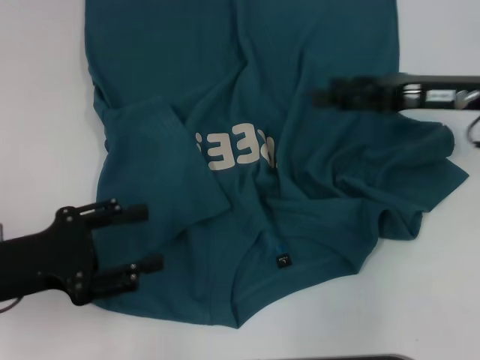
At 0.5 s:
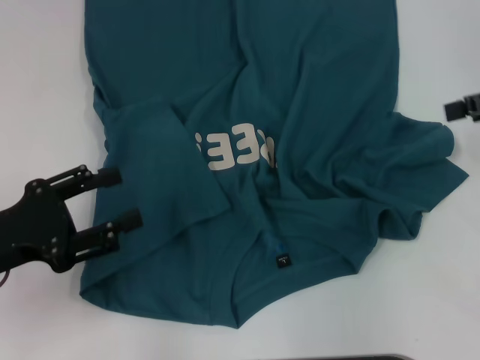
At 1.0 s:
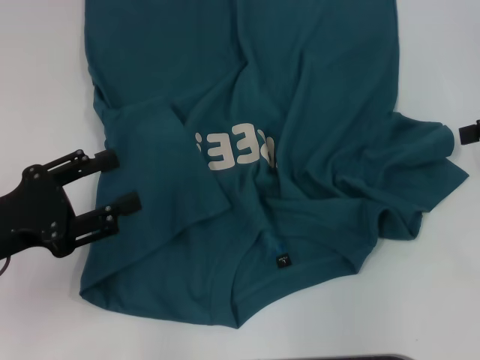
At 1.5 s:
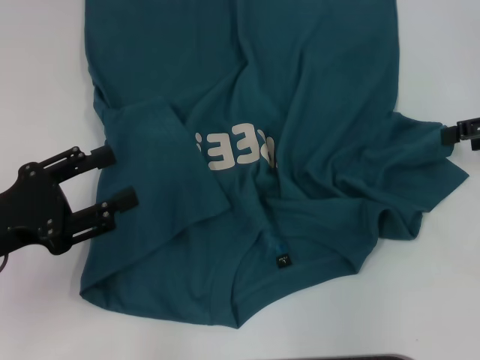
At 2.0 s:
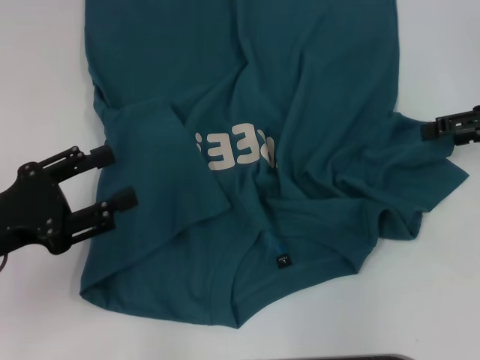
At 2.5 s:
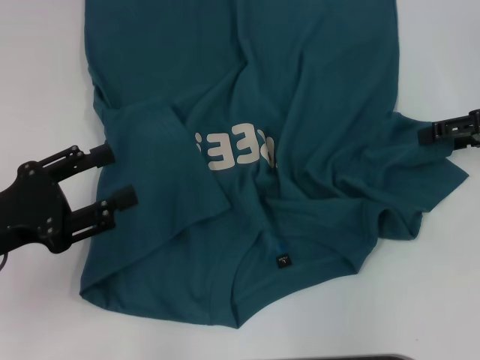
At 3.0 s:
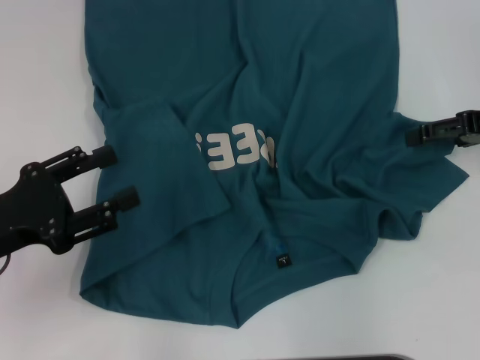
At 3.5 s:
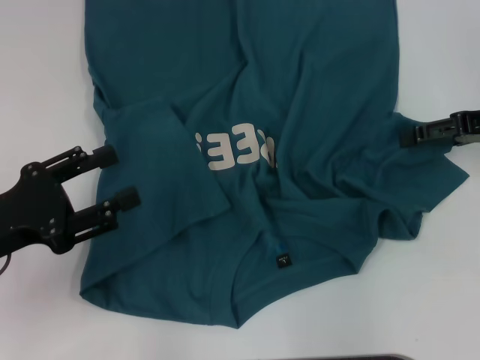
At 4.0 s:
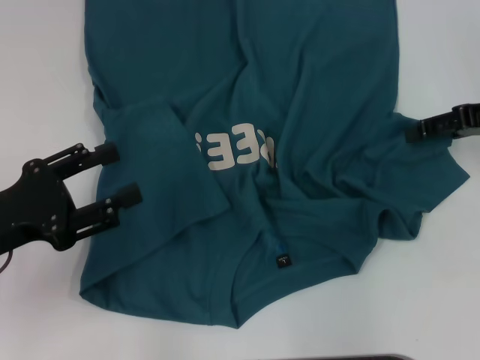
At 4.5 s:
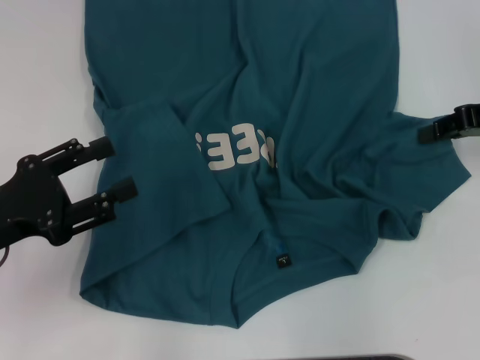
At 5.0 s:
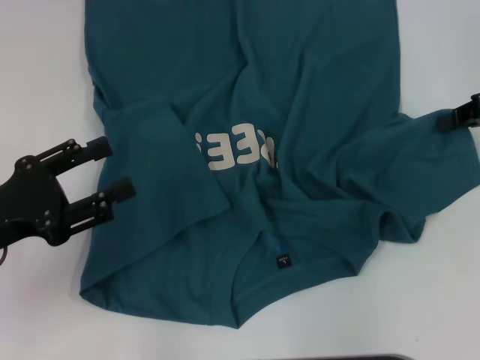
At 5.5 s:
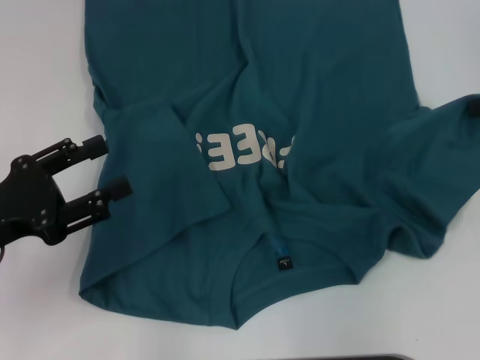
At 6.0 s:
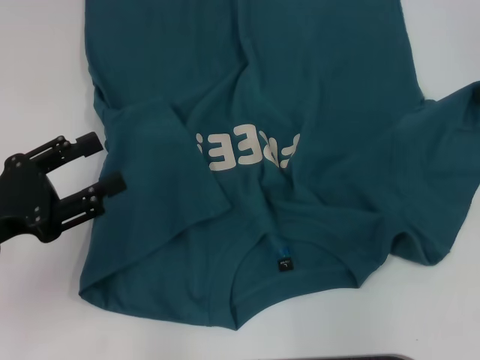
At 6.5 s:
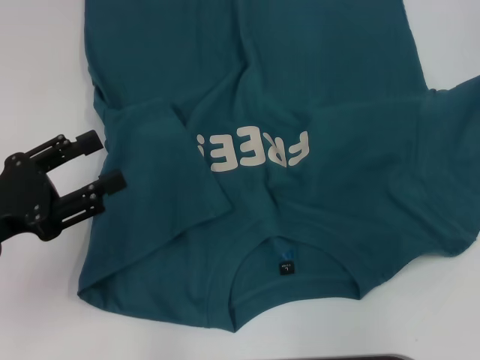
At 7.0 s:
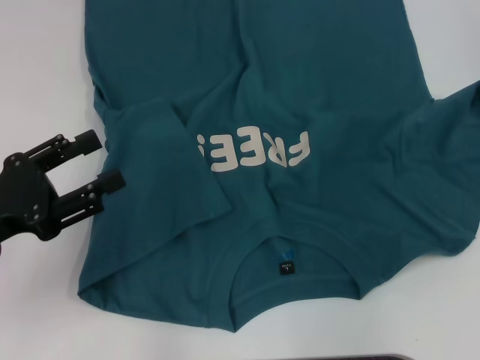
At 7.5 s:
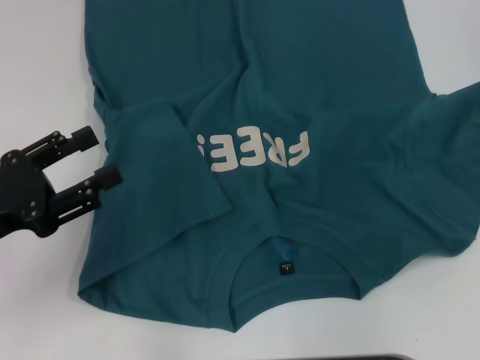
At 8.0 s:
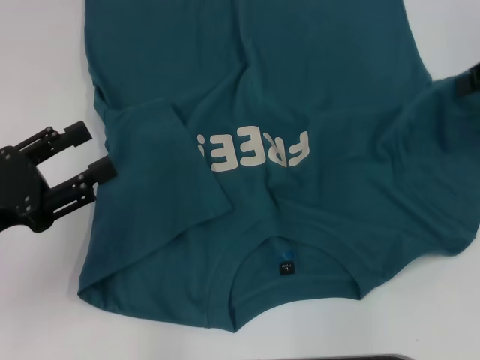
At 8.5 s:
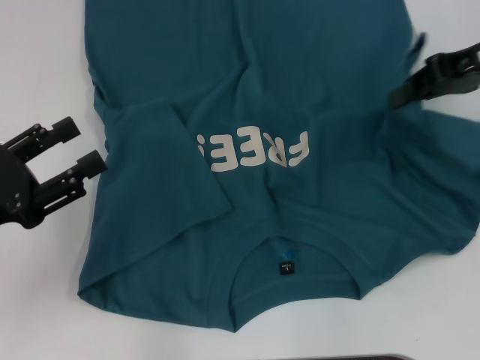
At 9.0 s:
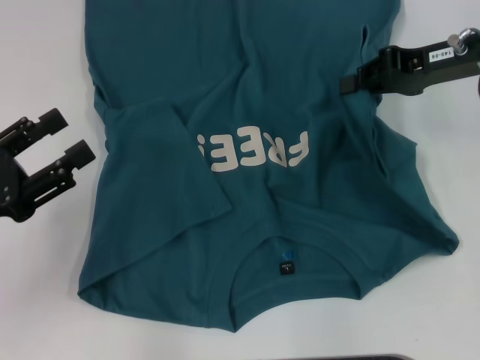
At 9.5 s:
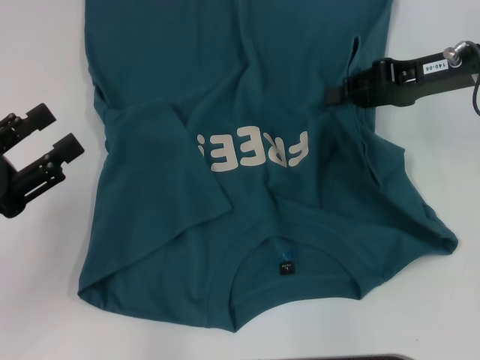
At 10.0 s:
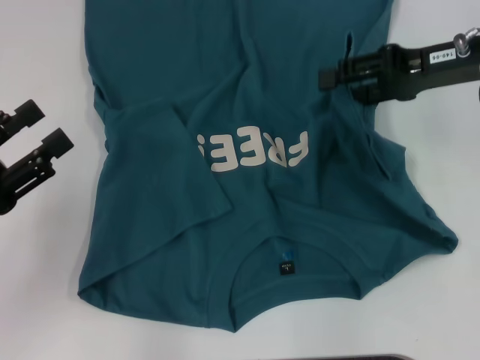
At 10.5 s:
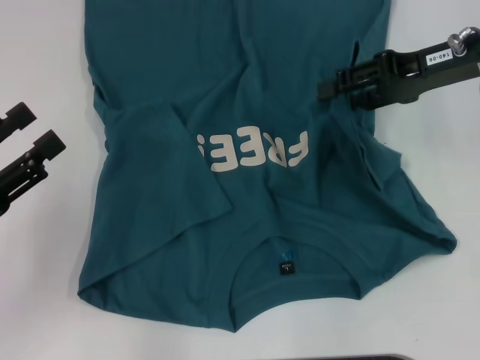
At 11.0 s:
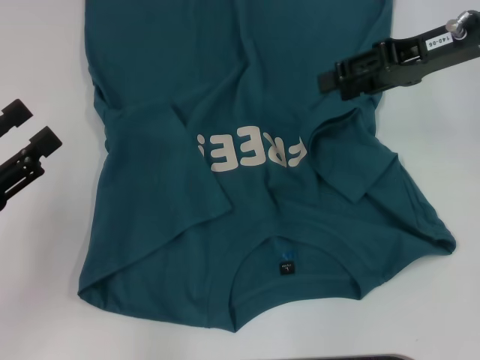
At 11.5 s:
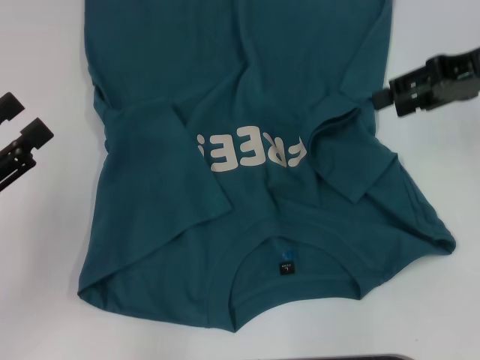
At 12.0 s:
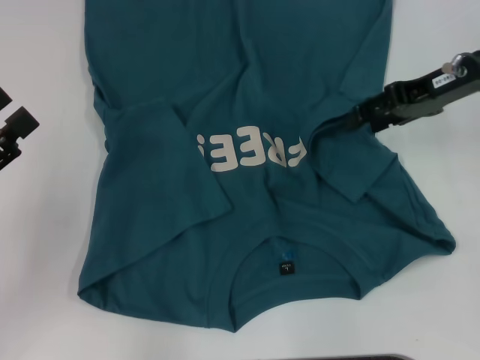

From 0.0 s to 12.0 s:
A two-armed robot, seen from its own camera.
From 0.0 s to 2.0 s: The right gripper is displaced to the right by approximately 10 cm.
From 2.0 s to 4.0 s: The grippers stay close to where they were, moving slightly.
From 4.0 s to 6.0 s: The right gripper shifts by some 5 cm, and closes its fingers.
From 6.0 s to 8.0 s: The right gripper shifts by some 5 cm.
From 8.0 s to 10.0 s: The right gripper goes roughly 10 cm to the left and downward, and opens its fingers.

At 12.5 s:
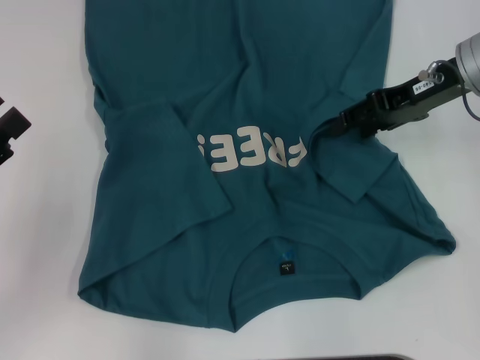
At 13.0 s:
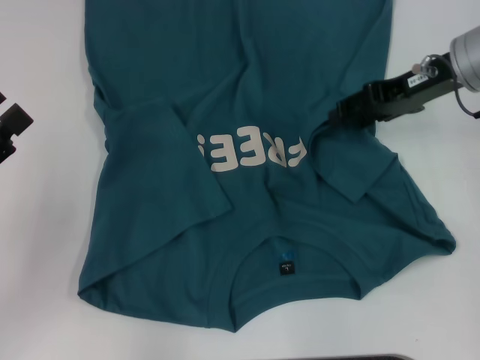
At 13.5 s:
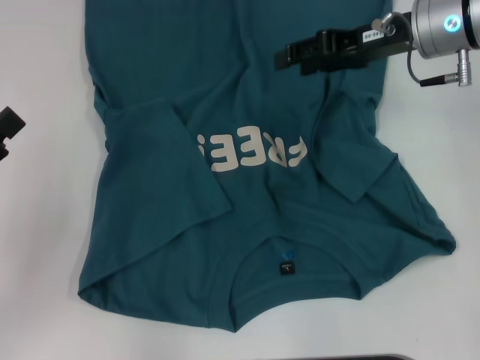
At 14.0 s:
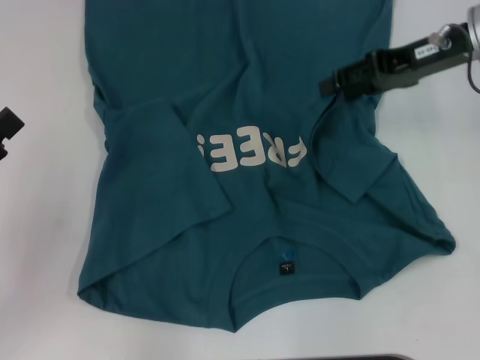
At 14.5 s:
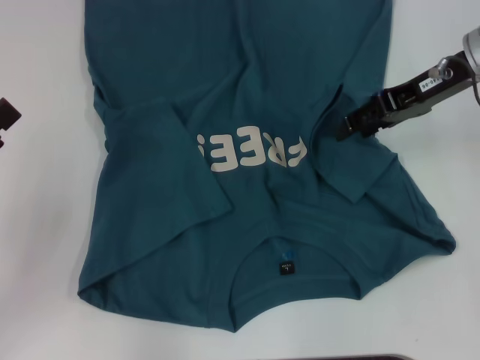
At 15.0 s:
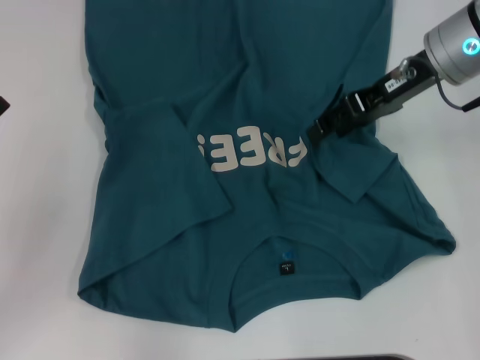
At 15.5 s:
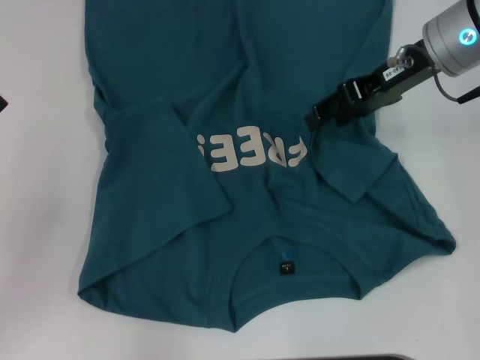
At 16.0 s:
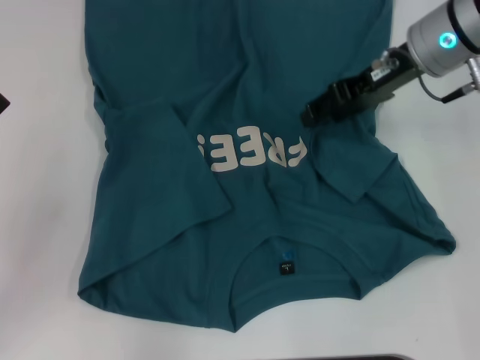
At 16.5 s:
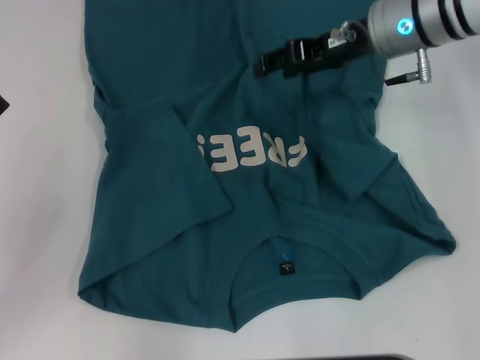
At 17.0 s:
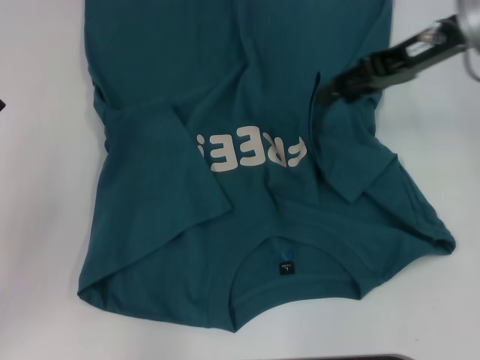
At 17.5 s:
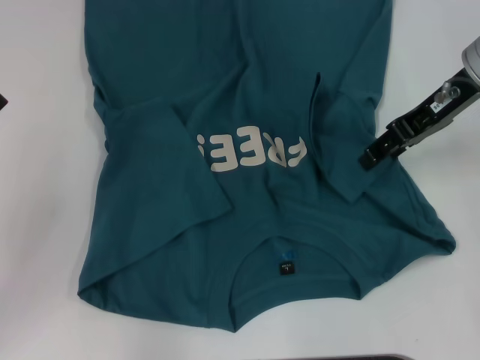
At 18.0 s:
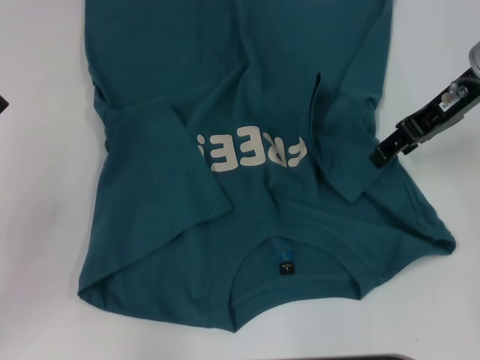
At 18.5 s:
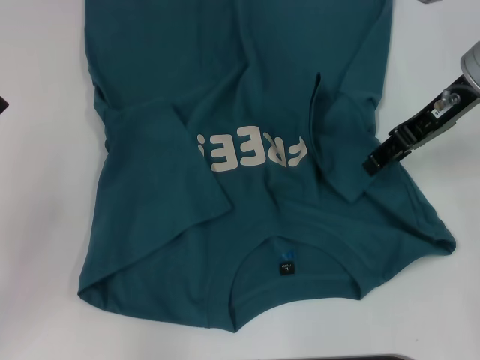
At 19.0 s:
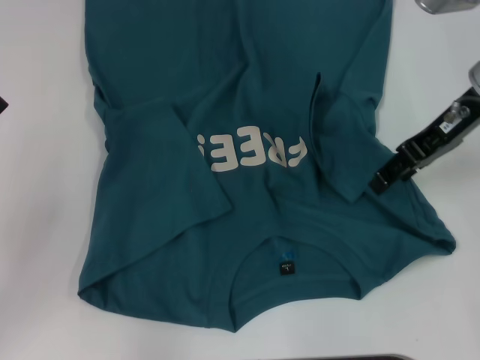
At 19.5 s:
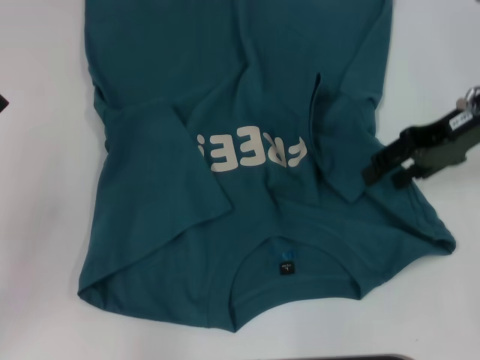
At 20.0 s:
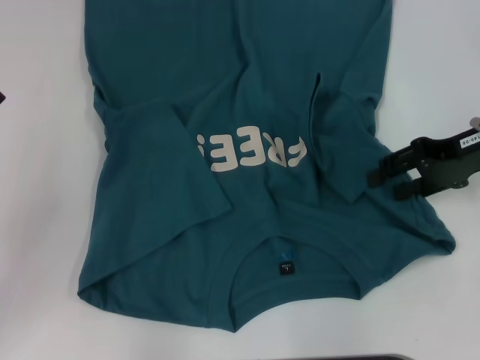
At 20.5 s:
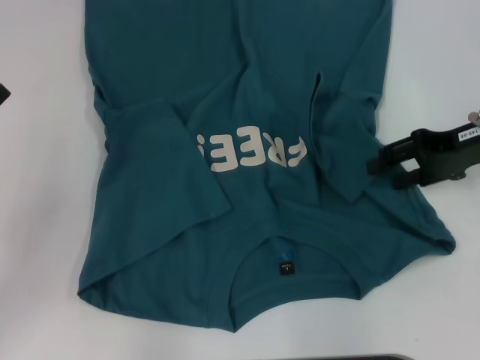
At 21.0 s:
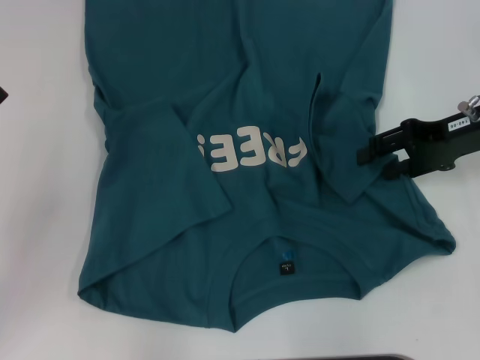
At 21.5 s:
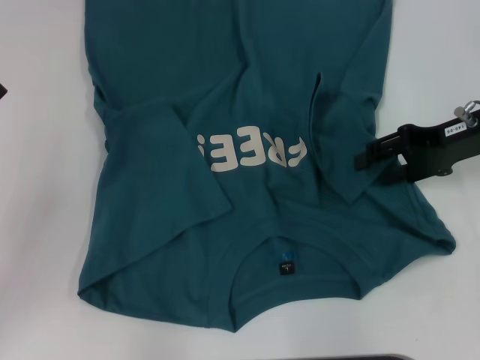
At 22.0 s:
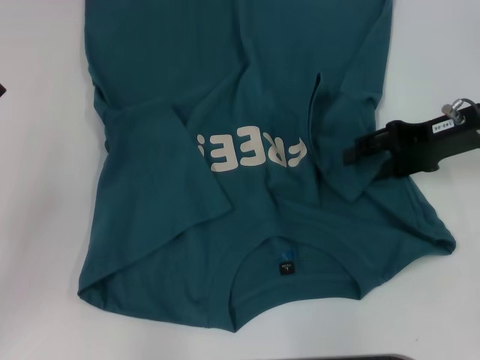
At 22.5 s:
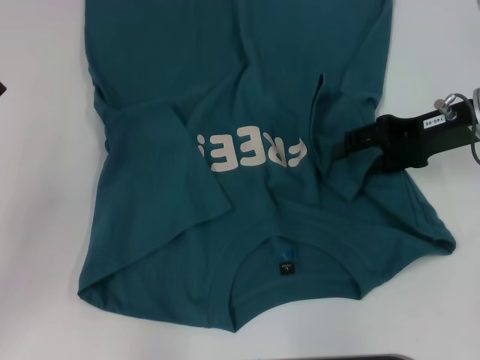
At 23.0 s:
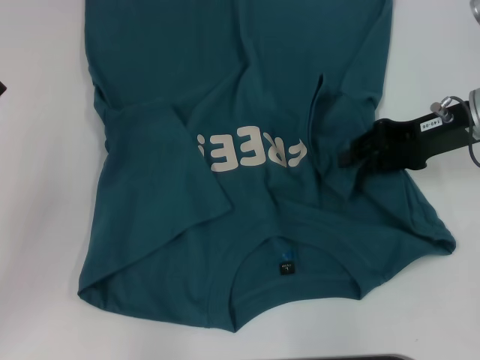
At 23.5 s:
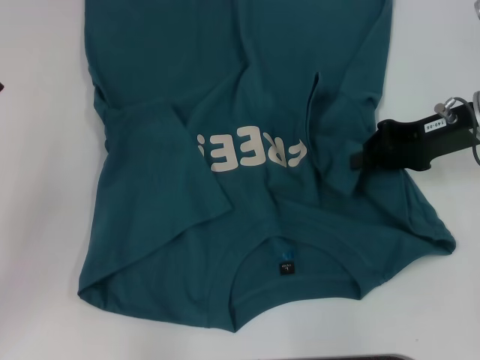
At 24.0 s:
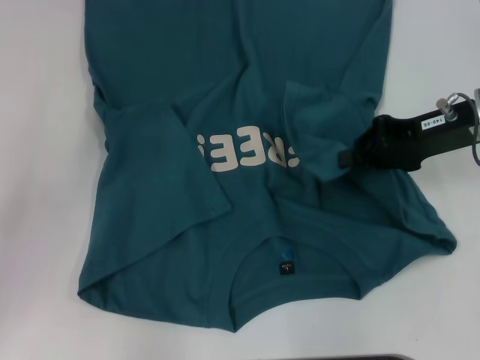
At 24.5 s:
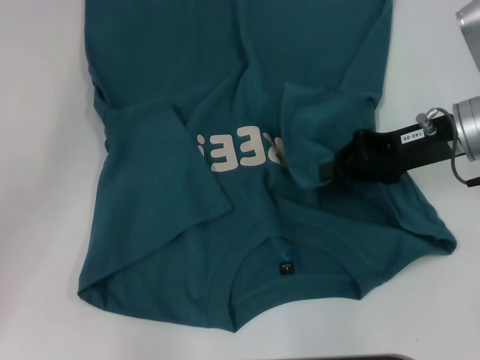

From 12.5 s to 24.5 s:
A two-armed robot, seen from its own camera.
From 12.5 s to 14.5 s: There are only small adjustments of the grippers.
From 14.5 s to 16.5 s: The right gripper heads to the left, covering approximately 5 cm.
From 16.5 s to 18.5 s: The right gripper travels to the right by approximately 5 cm.
From 18.5 s to 20.5 s: The right gripper travels to the right and downward by some 10 cm.
From 20.5 s to 22.5 s: The grippers make only small movements.
From 22.5 s to 24.5 s: The right gripper closes its fingers.

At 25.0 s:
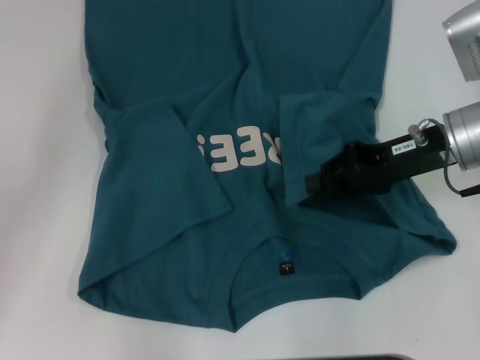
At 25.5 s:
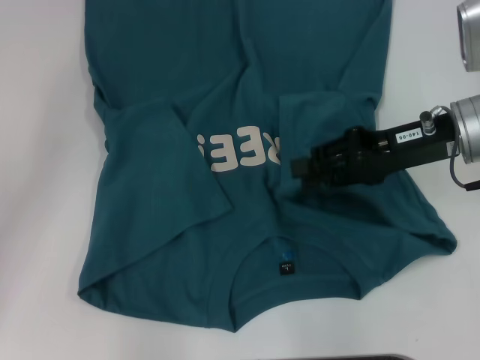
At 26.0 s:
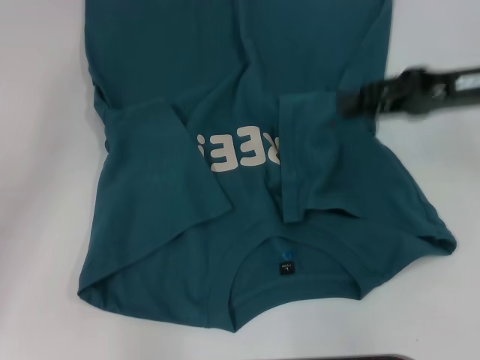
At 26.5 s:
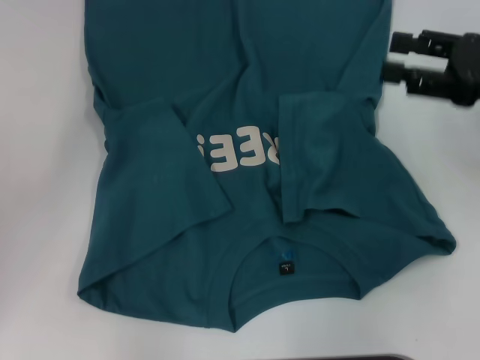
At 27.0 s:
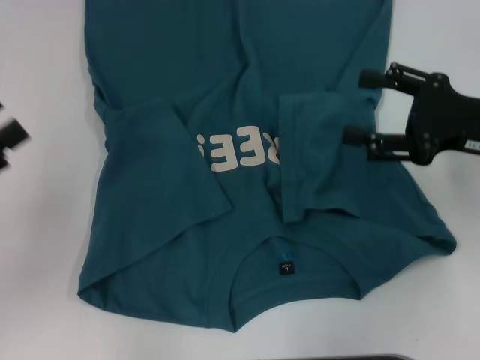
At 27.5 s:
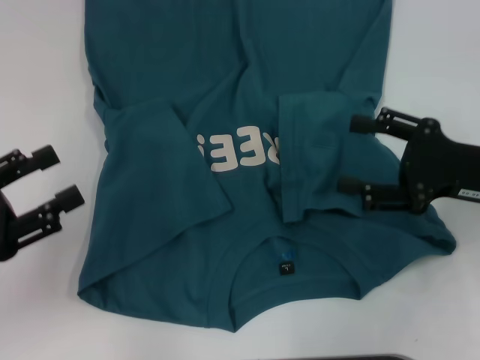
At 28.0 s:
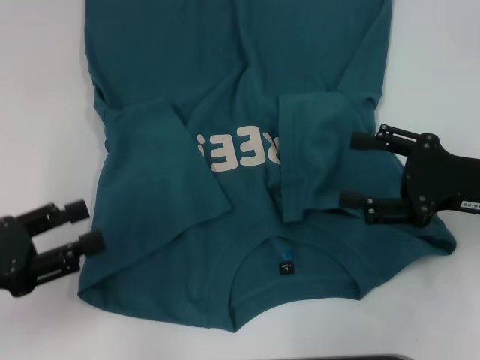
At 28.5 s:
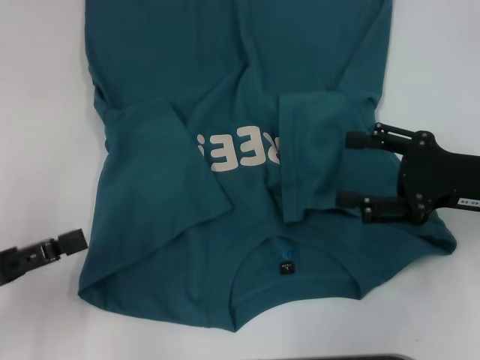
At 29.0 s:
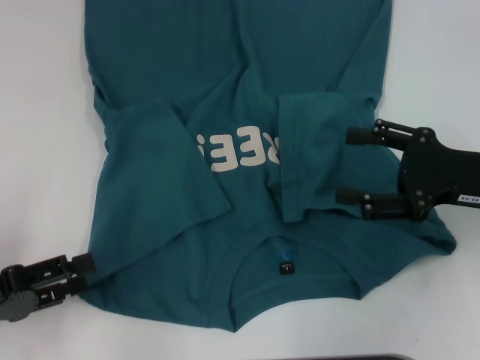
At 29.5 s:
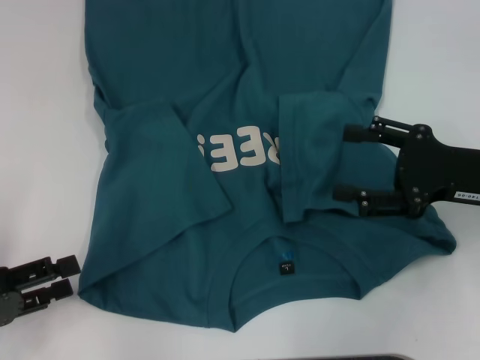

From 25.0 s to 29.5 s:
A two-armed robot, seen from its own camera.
From 25.0 s to 27.0 s: The right gripper is displaced to the right by about 5 cm, and opens up.
From 27.0 s to 29.5 s: The left gripper shifts about 5 cm downward.
